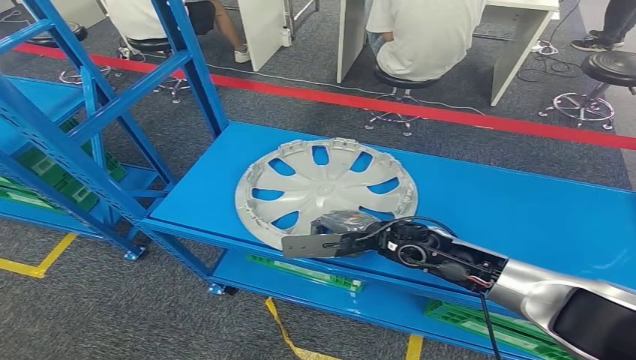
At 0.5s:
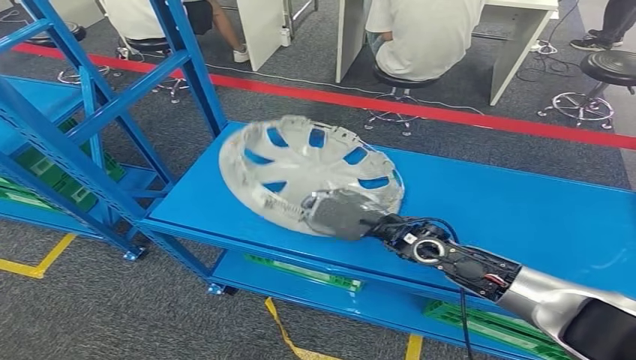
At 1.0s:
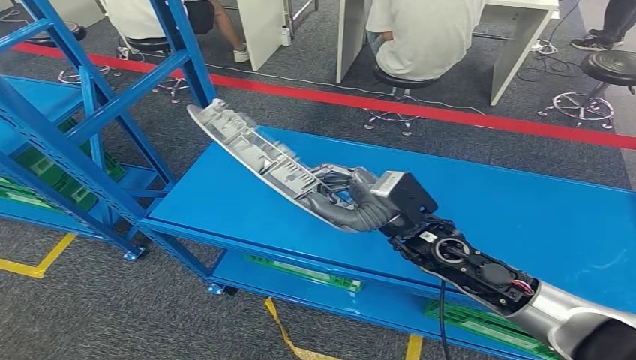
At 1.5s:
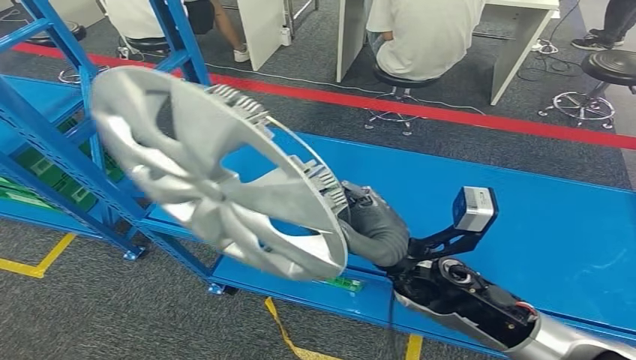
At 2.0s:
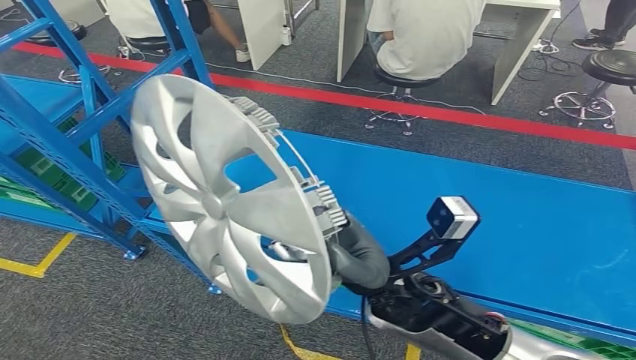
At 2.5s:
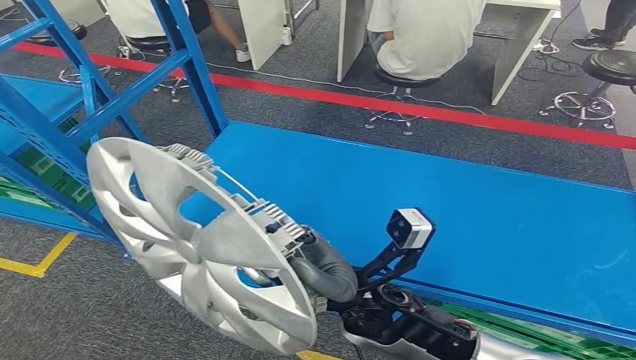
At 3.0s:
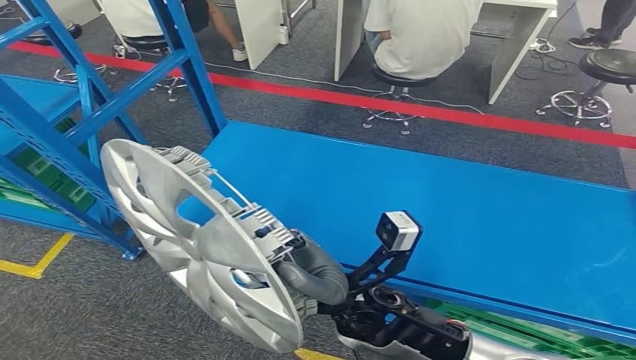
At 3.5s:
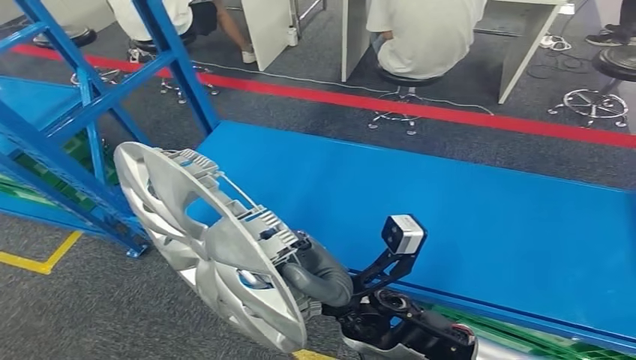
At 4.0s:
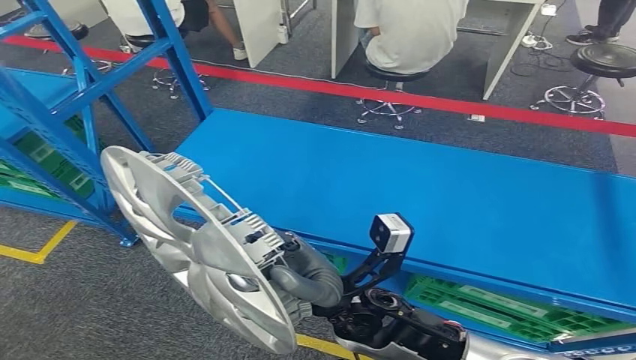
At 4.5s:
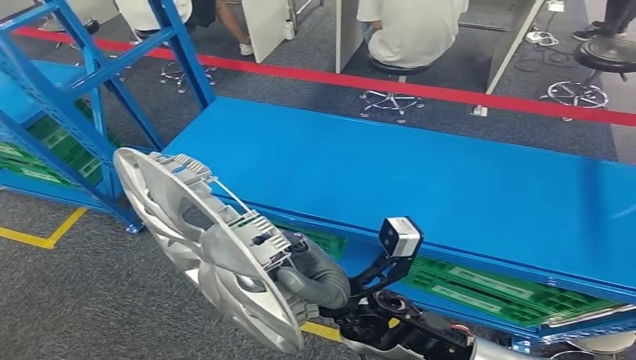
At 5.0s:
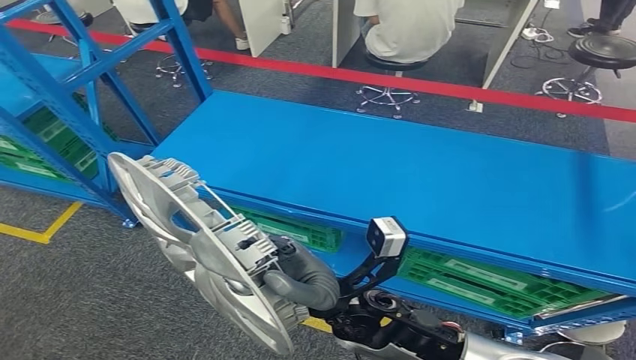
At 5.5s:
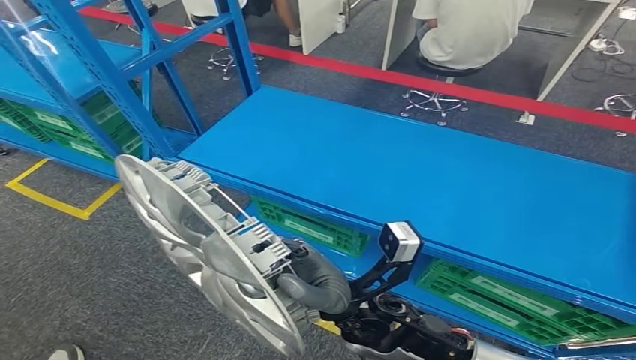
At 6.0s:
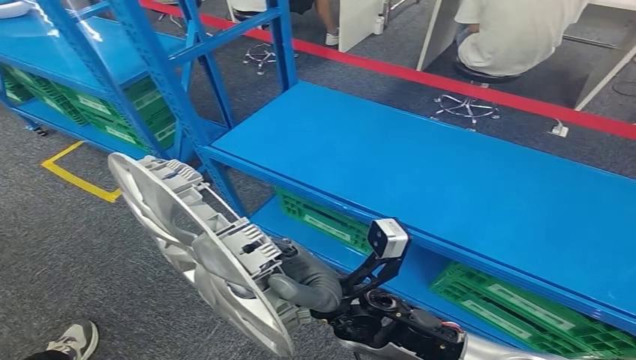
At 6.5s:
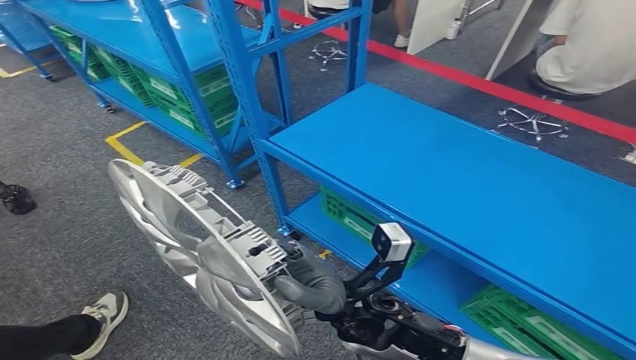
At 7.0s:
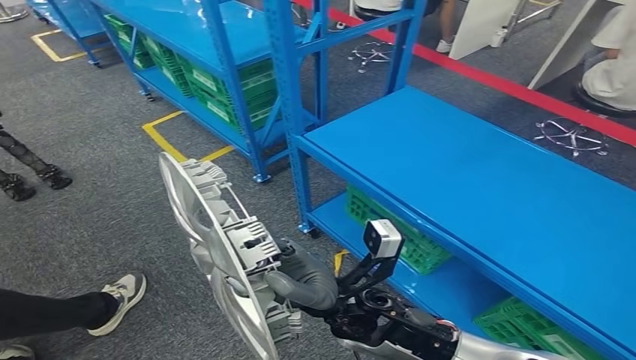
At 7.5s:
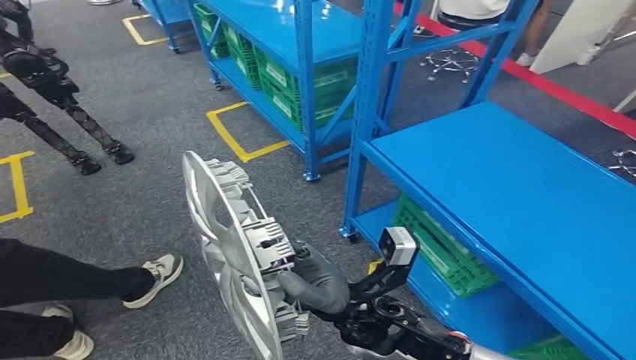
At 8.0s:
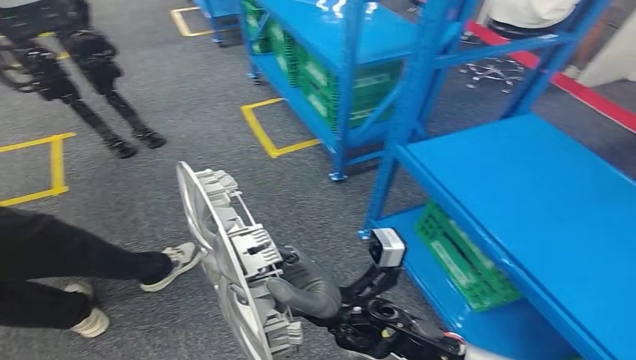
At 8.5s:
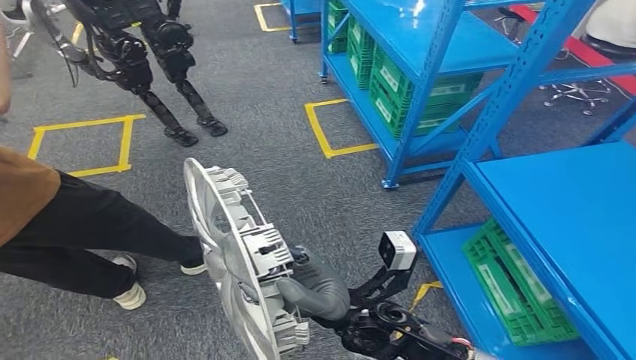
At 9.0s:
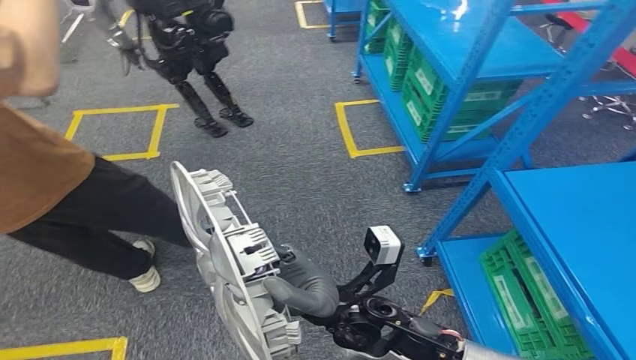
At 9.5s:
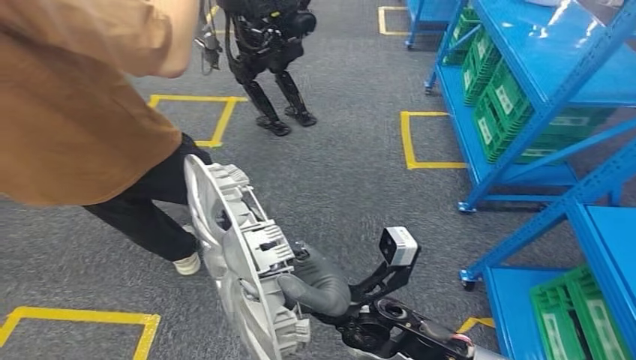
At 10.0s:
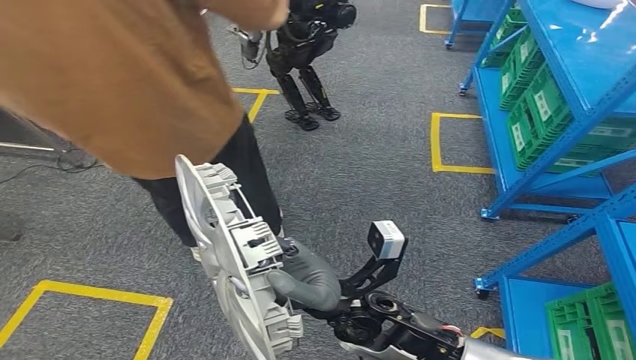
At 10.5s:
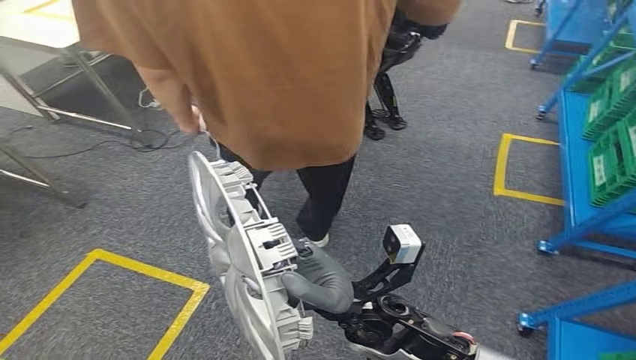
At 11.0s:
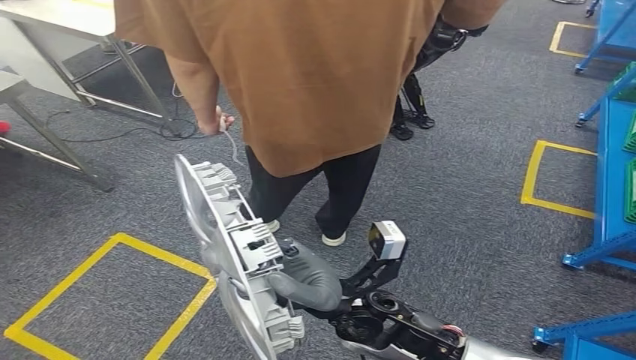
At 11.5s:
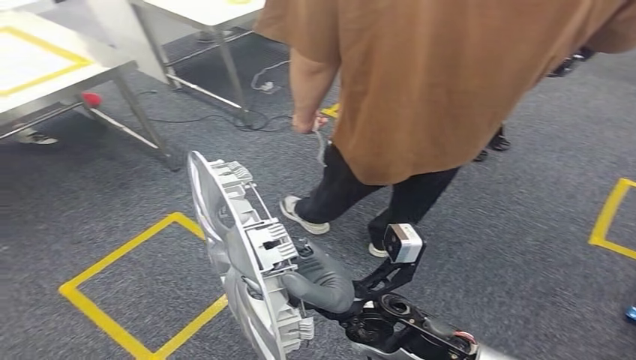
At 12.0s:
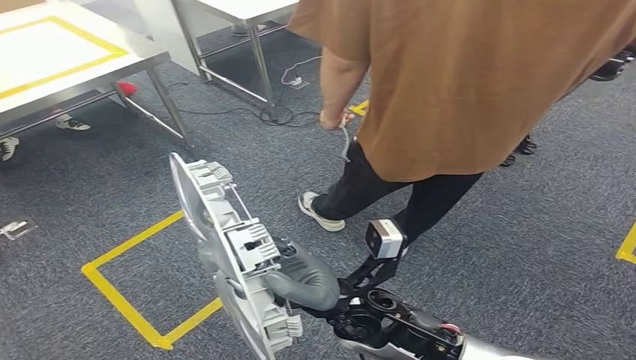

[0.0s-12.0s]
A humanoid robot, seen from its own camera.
Step, 0.0s to 3.0s: Pick up the small parts from the shelf.

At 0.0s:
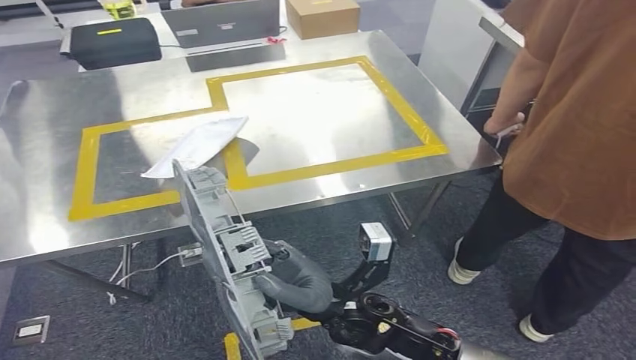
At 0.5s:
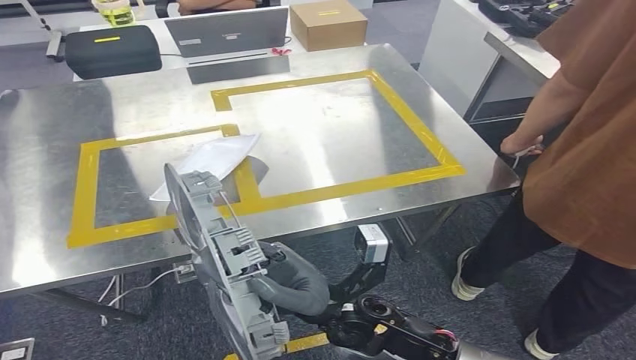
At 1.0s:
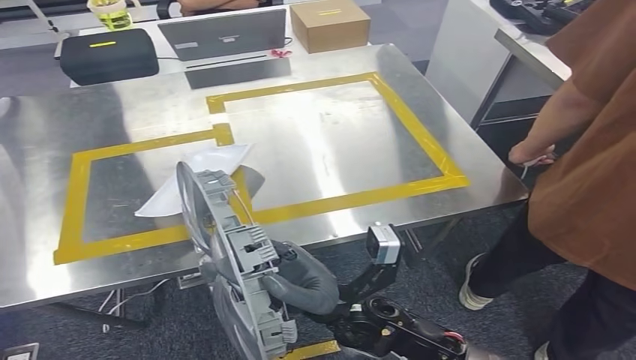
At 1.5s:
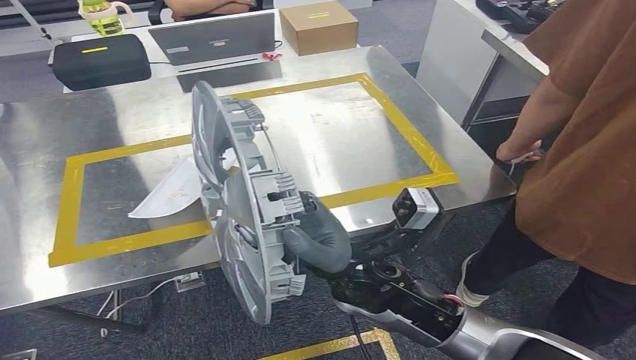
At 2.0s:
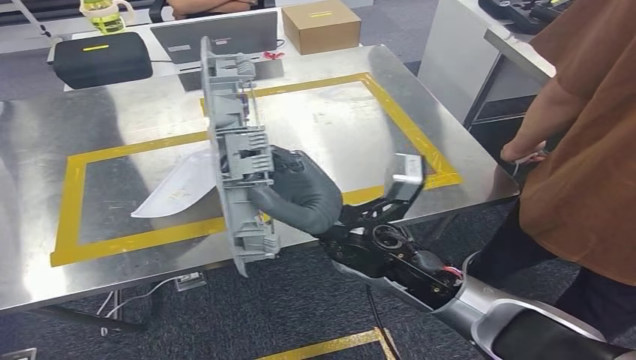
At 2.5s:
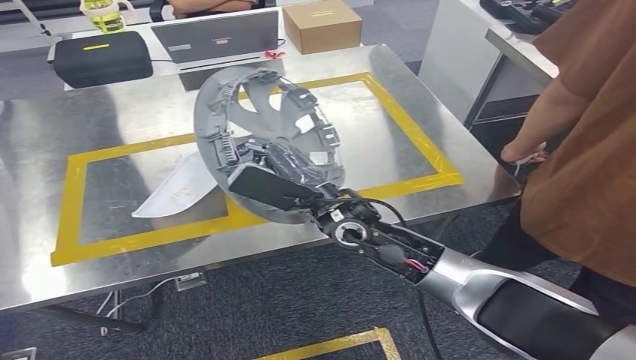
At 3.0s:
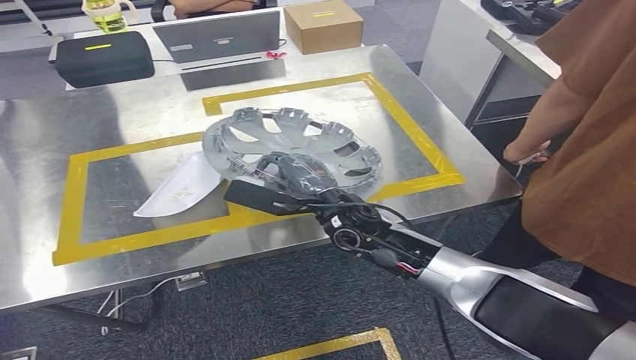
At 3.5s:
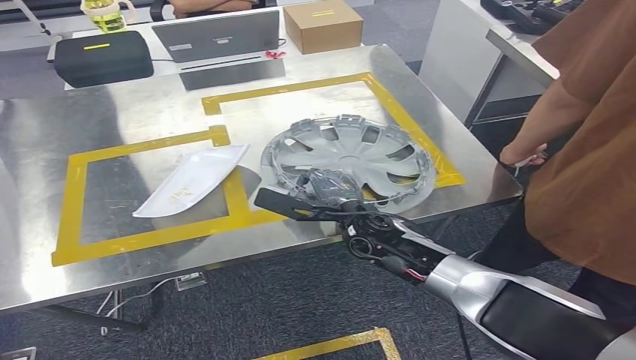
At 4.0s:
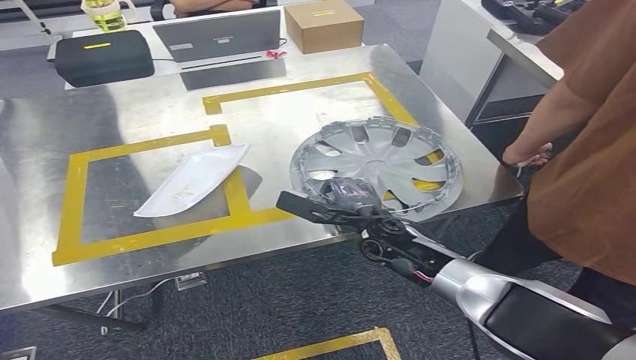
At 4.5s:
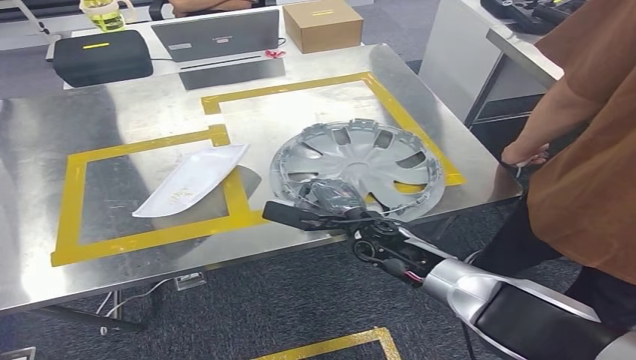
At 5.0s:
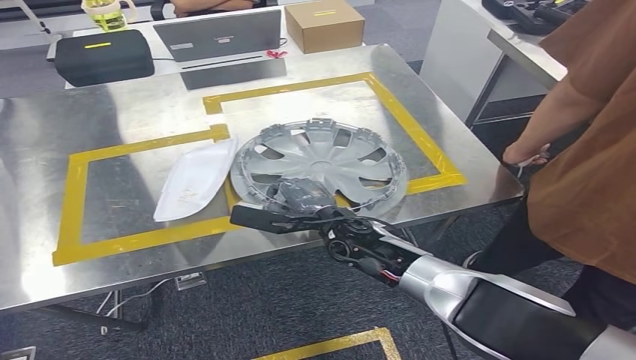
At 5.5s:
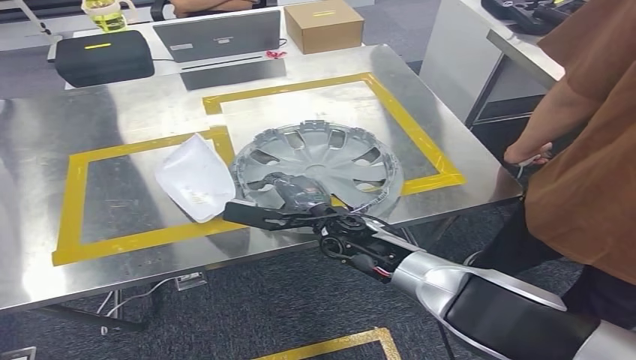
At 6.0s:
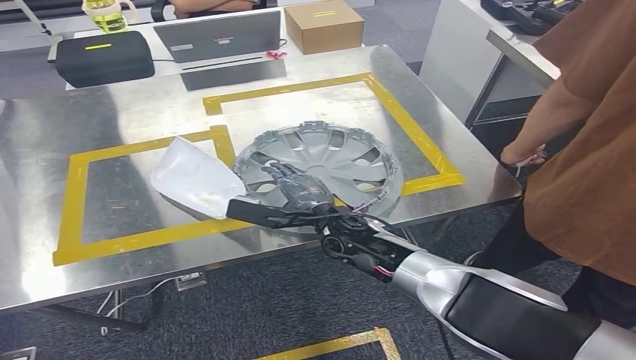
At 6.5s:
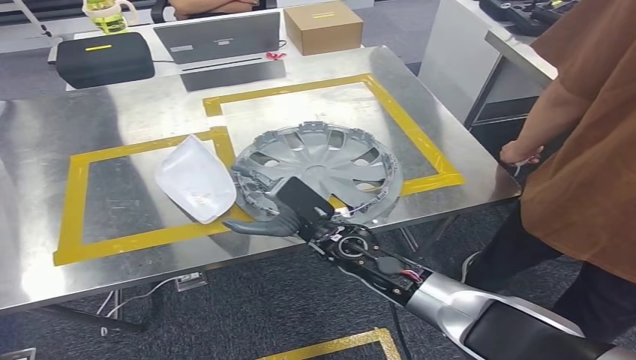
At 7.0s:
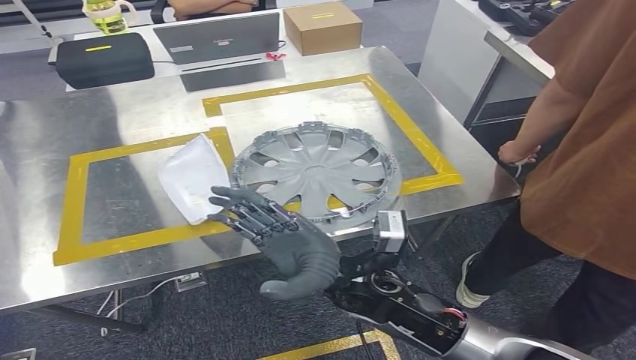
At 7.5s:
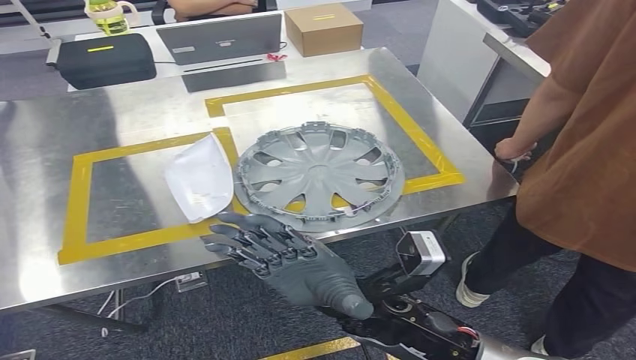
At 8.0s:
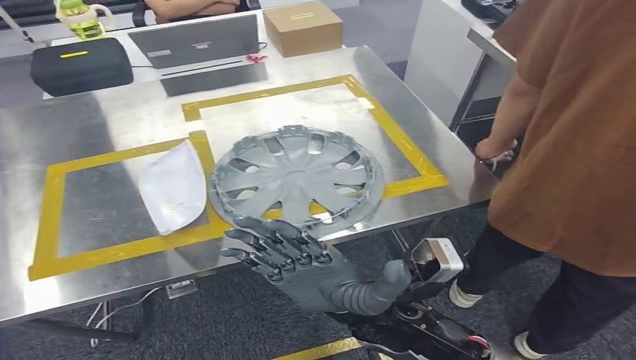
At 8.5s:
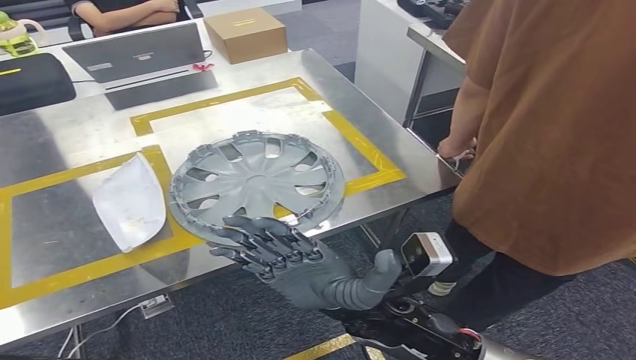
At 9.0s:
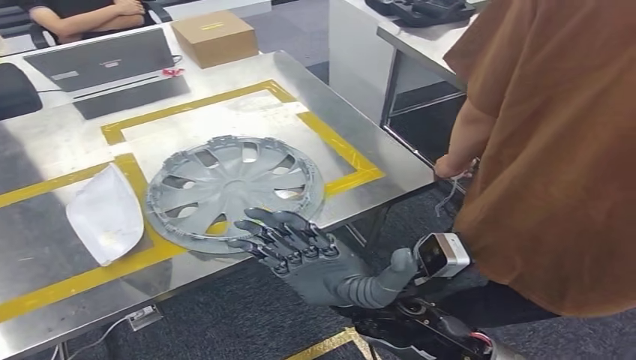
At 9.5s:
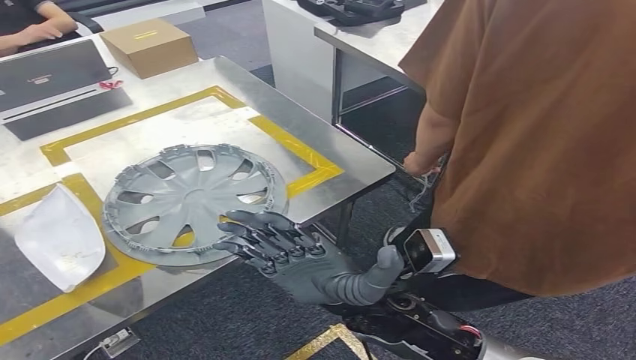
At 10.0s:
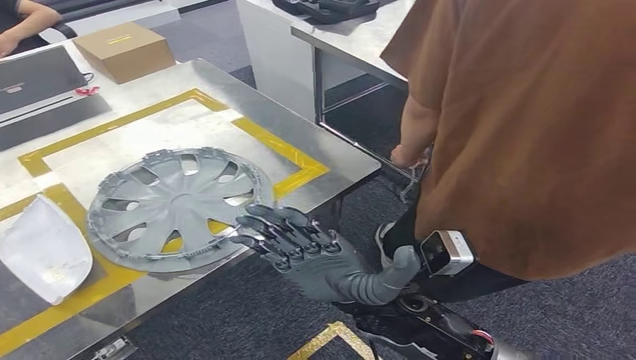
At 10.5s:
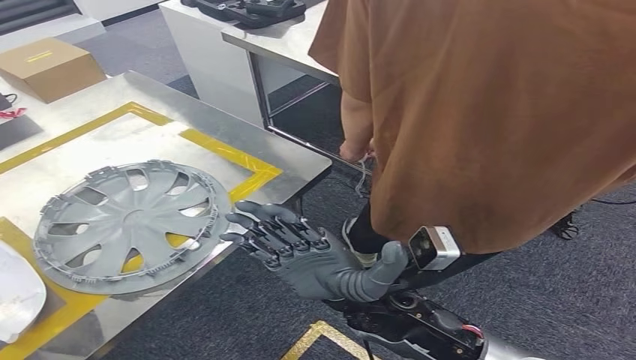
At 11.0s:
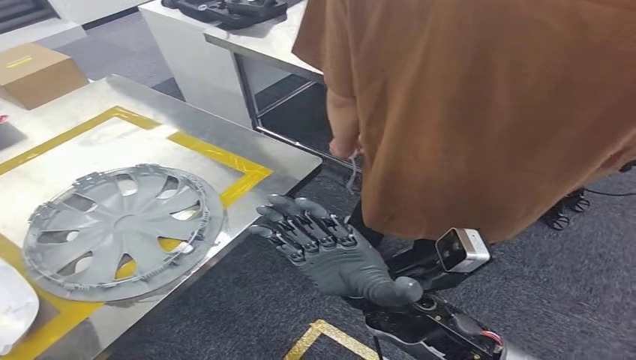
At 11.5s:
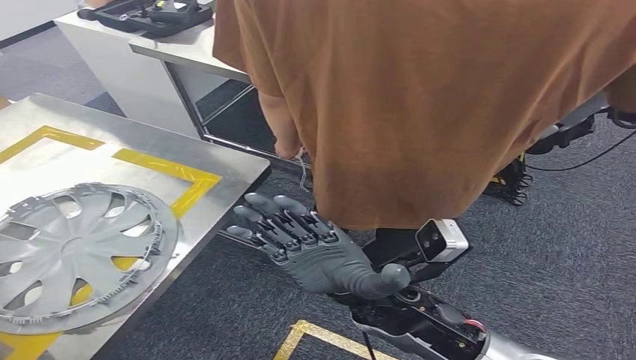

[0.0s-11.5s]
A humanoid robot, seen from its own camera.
Step, 1.0s to 7.5s: Insert the small parts into the corresponding slots on the workbench.
4.0s to 6.0s: The right hand heads to the left, covering approximately 5 cm.
